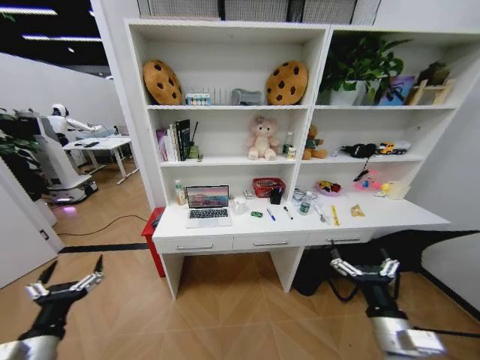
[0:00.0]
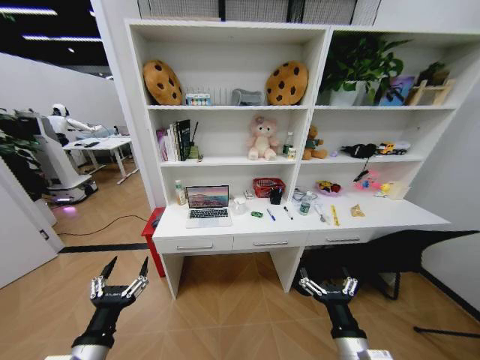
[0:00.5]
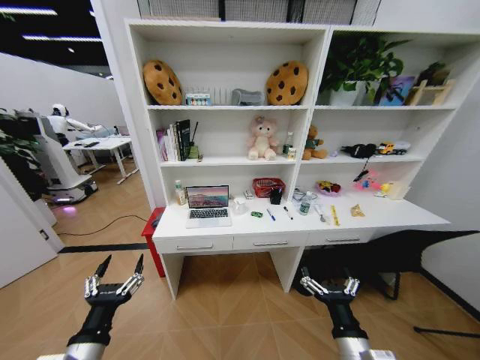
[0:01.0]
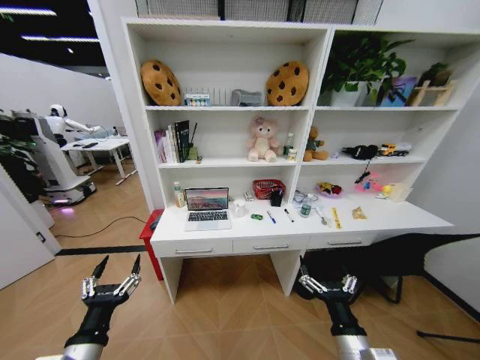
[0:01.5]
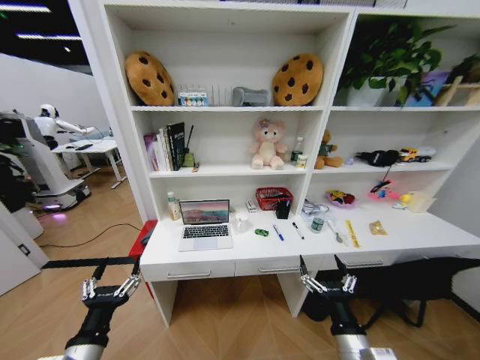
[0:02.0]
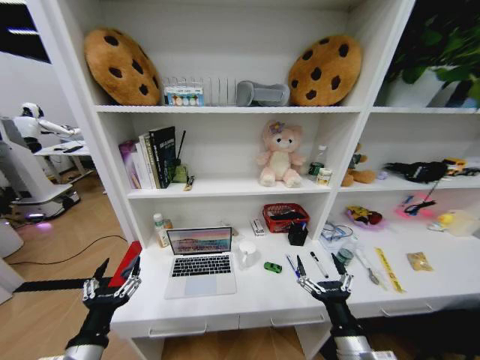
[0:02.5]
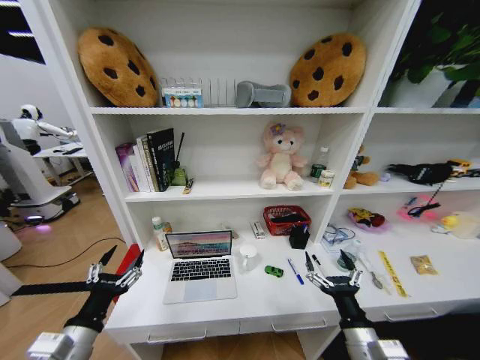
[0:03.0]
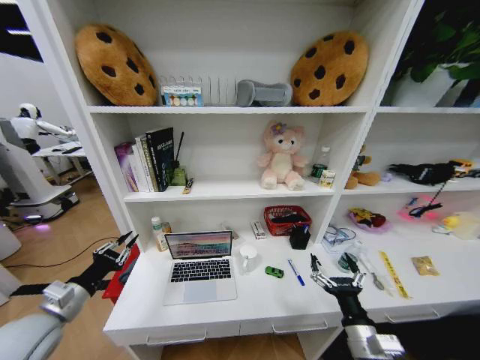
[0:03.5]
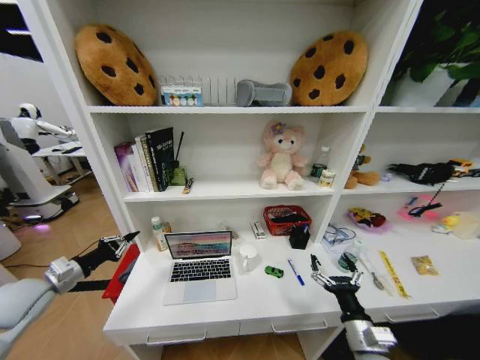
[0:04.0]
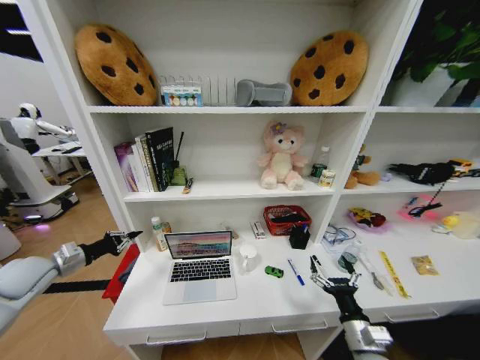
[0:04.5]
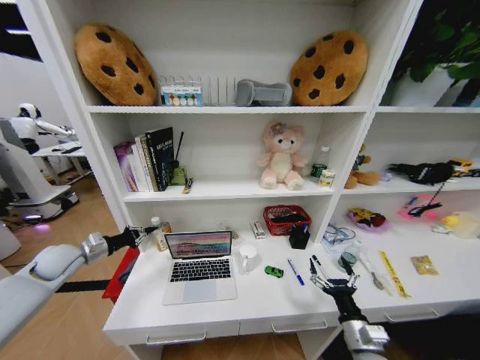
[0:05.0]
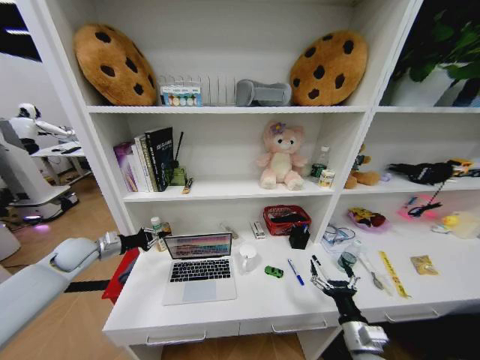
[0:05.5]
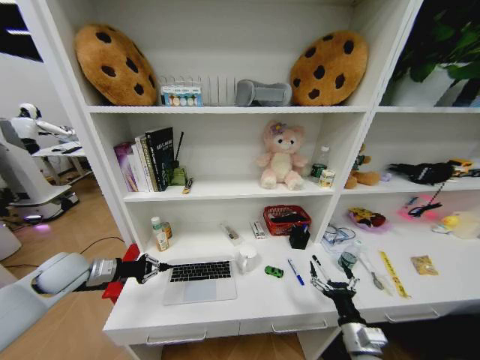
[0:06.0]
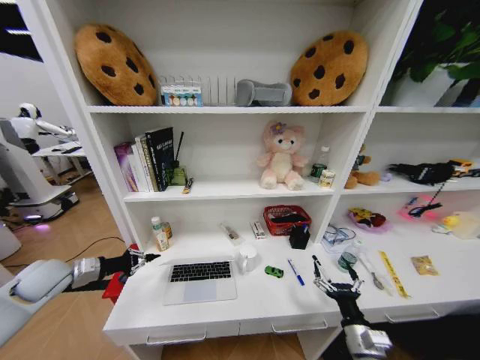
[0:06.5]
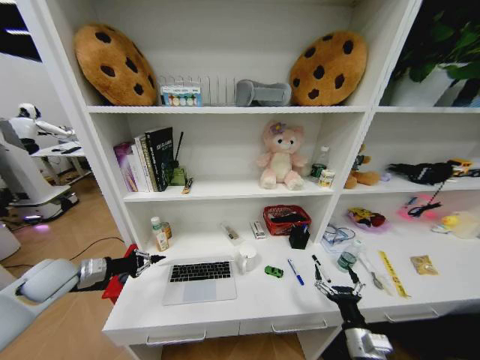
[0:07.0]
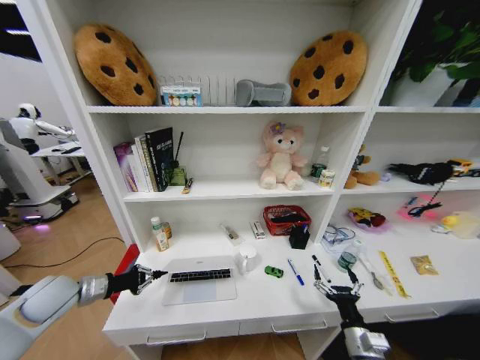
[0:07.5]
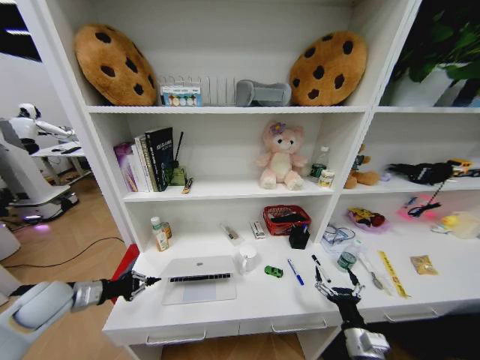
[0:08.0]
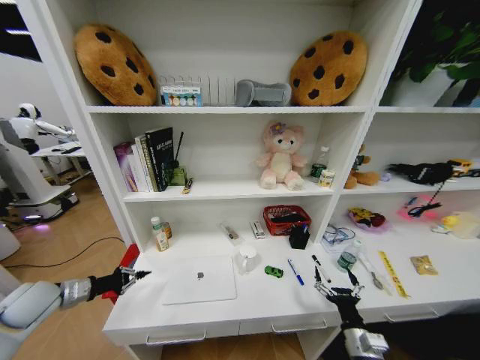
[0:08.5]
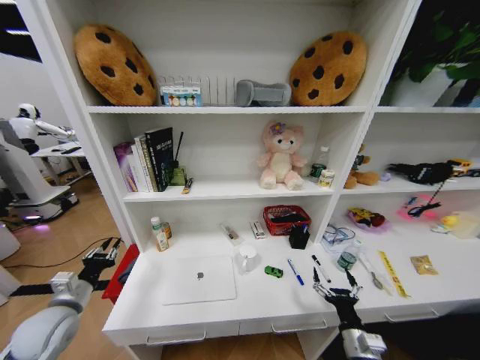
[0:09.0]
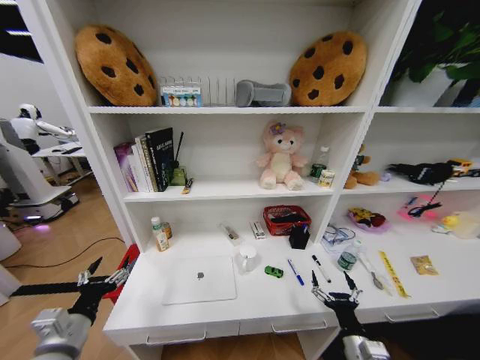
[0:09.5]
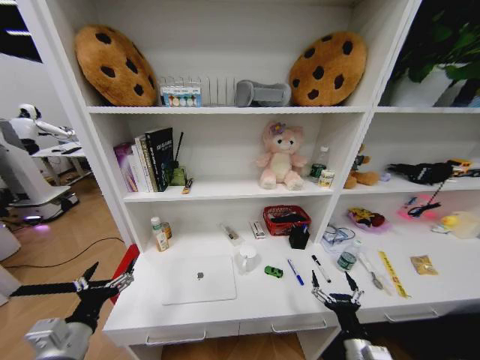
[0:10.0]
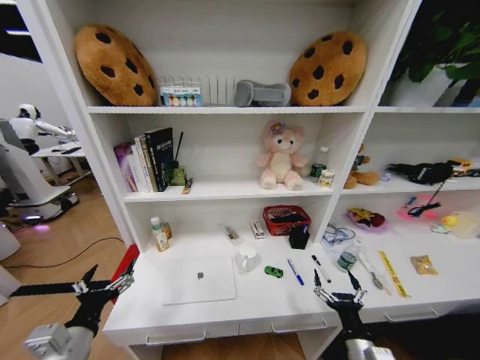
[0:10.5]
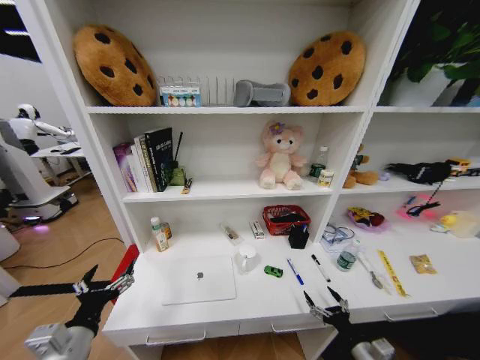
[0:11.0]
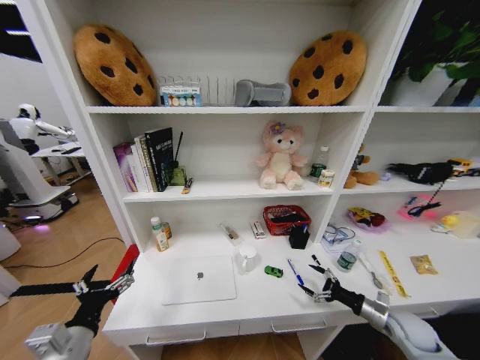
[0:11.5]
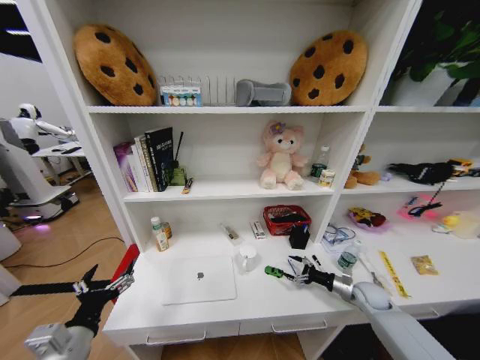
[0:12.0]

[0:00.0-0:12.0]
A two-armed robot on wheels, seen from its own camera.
Task of the whole recording: Organize the objects on the table.
0:02.0 to 0:04.0: The left gripper heads to the left and forward, covering approximately 25 cm, and closes its fingers; the right gripper moves to the right, about 5 cm.
0:04.0 to 0:06.0: The left gripper heads forward, covering about 5 cm.
0:06.0 to 0:08.0: The left gripper heads backward, covering approximately 5 cm.
0:08.0 to 0:10.0: The left gripper heads backward and to the right, covering some 20 cm, and opens up.
0:10.0 to 0:12.0: The right gripper is displaced forward and to the right by approximately 30 cm.

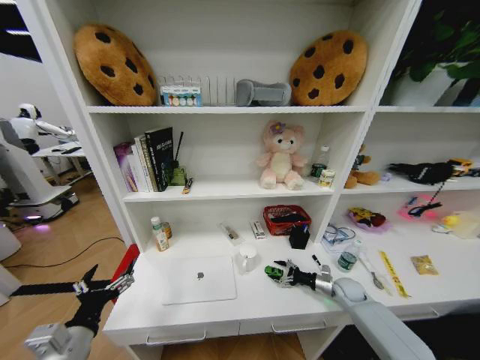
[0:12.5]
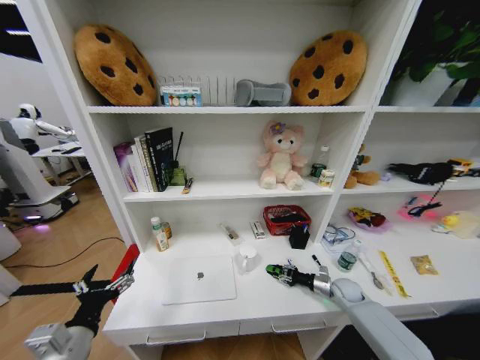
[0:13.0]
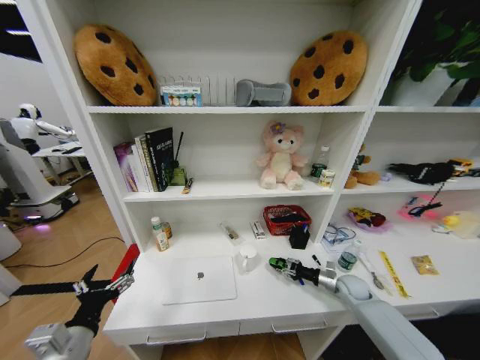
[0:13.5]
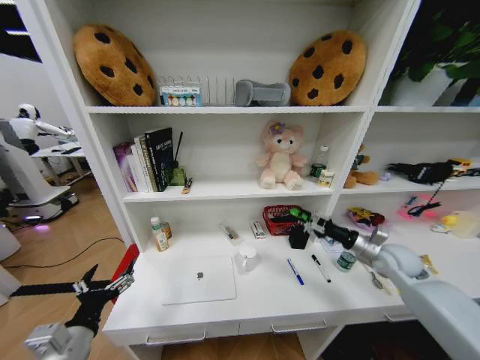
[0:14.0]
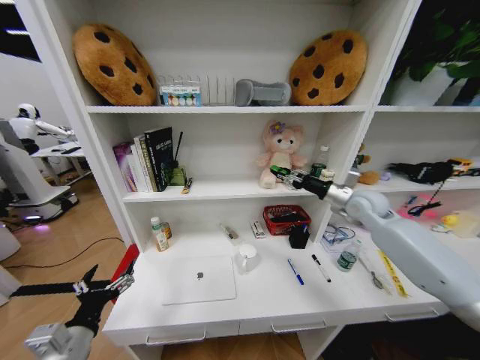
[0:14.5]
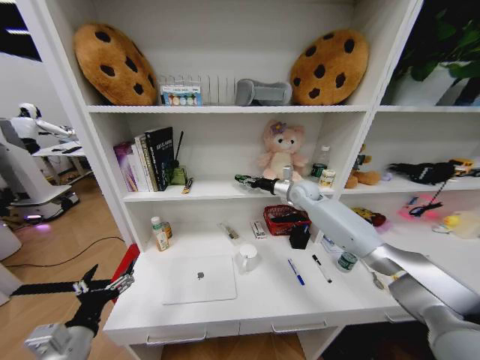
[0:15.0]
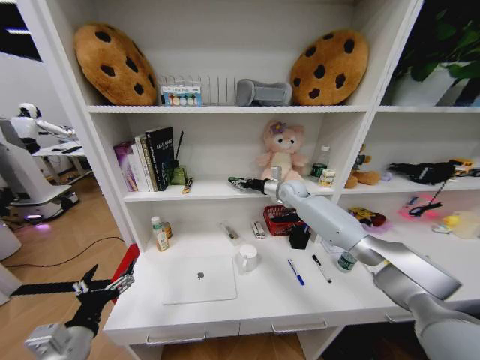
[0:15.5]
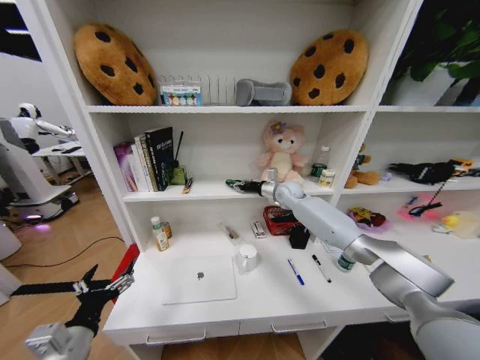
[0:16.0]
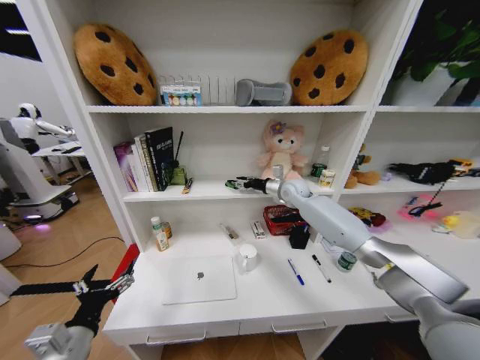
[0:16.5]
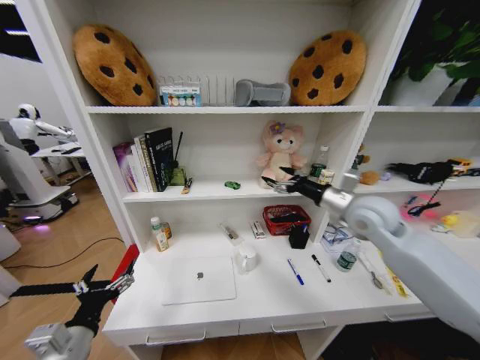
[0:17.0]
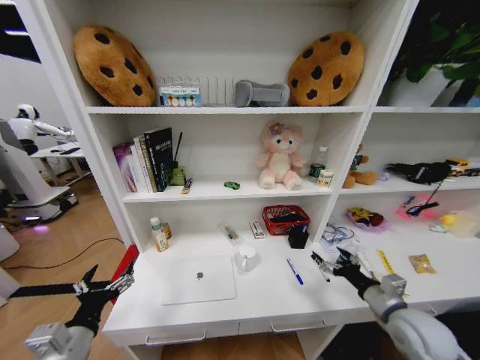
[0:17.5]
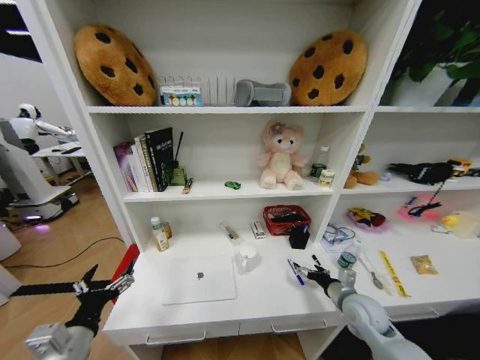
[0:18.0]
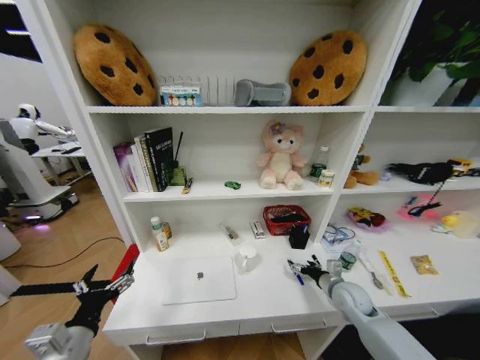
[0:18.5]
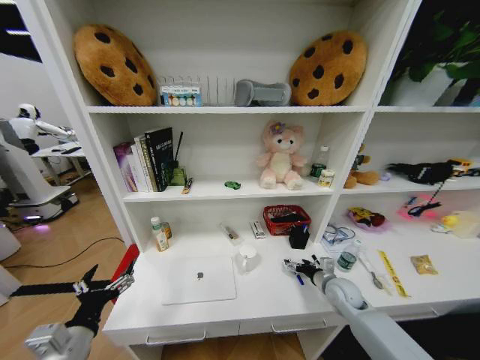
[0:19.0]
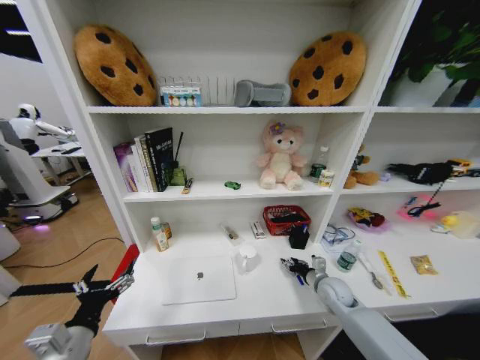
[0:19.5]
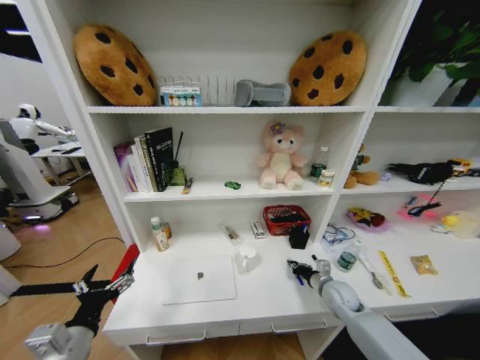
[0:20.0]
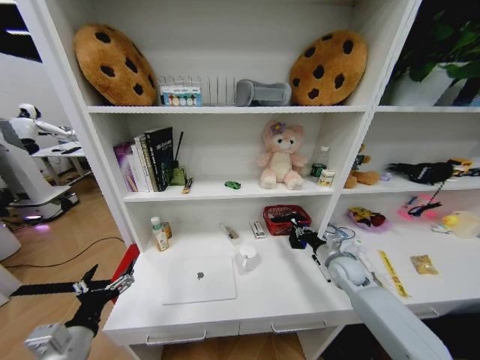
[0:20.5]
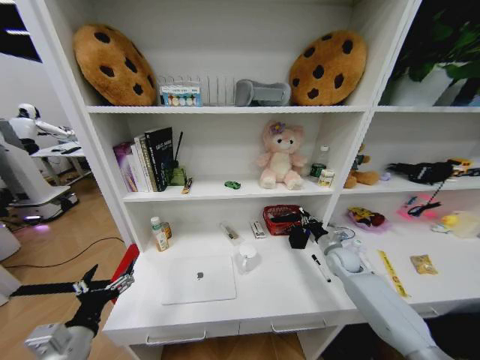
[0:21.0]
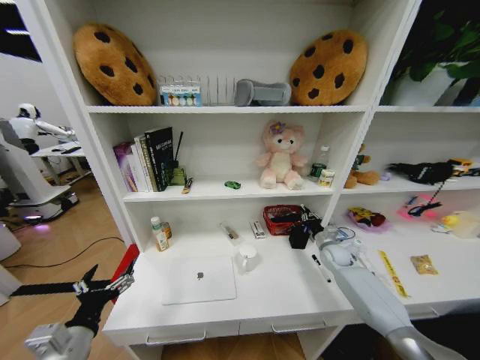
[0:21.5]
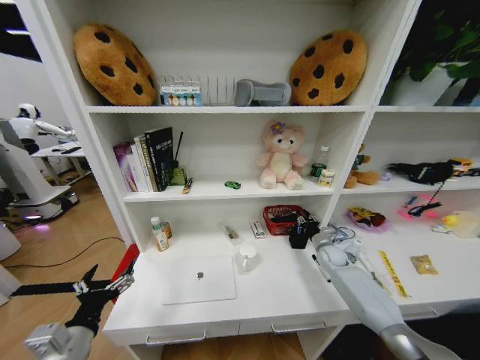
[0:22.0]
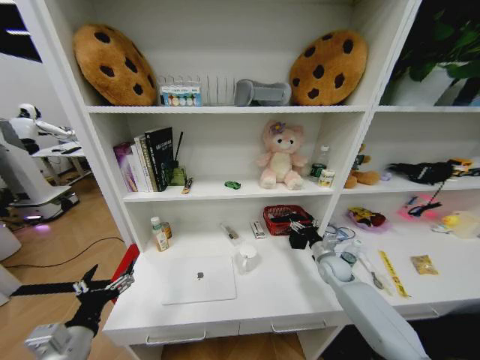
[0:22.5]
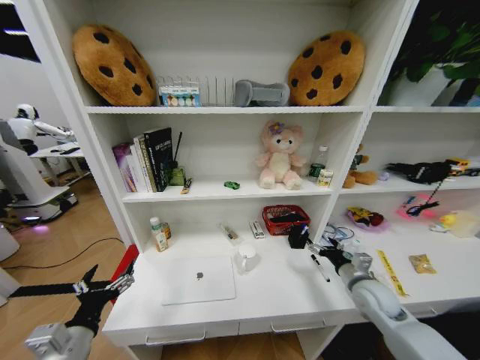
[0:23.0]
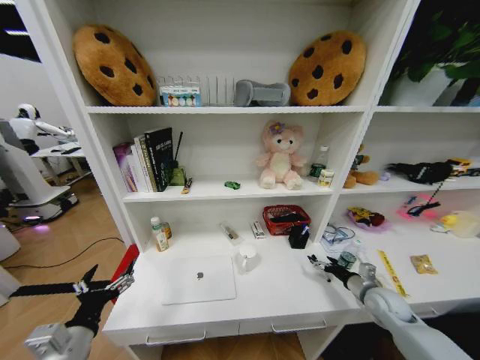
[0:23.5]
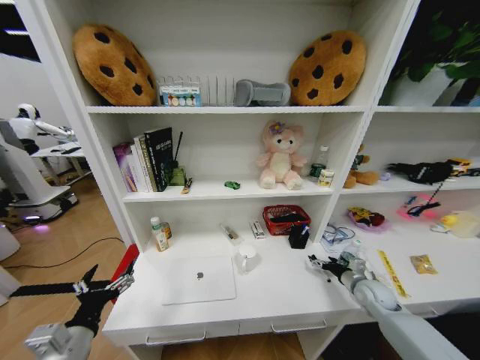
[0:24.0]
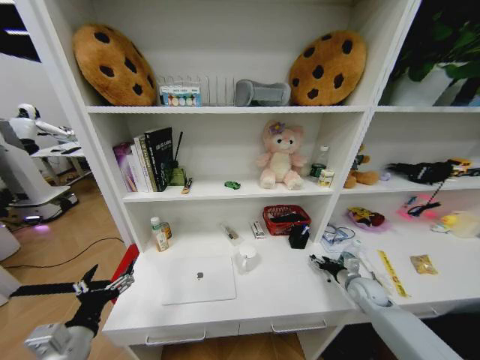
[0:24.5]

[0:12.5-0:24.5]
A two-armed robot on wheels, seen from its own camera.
Task of the whole recording: Organize the objects on the table.
0:12.5 to 0:14.5: The right gripper travels upward by some 35 cm, and closes.
0:14.5 to 0:16.5: The right gripper moves to the left and forward, about 20 cm.
0:16.5 to 0:18.5: The right gripper shifts approximately 35 cm backward, downward and to the right.
0:18.5 to 0:20.5: The right gripper travels forward by about 5 cm, and closes its fingers.
0:20.5 to 0:22.5: The right gripper reaches about 10 cm forward, then returns, and opens its fingers.
0:22.5 to 0:24.5: The right gripper is displaced to the right and backward by about 10 cm.

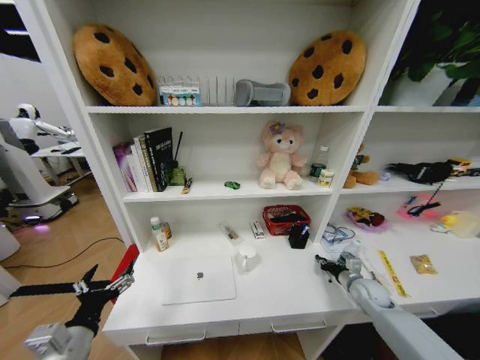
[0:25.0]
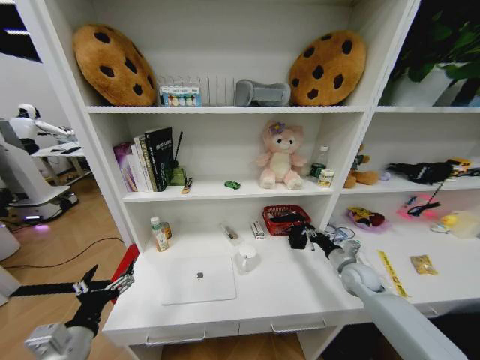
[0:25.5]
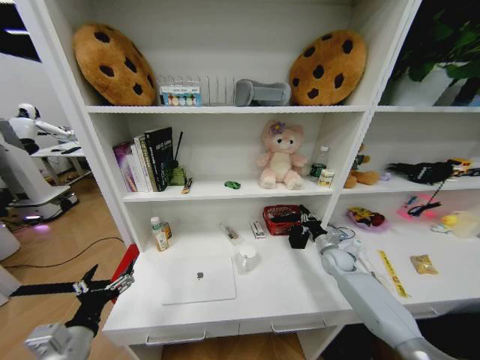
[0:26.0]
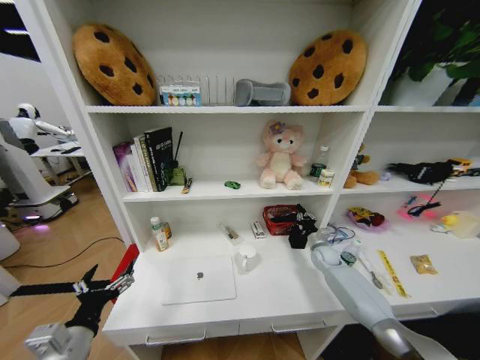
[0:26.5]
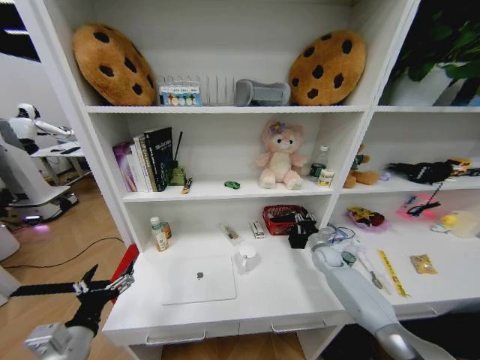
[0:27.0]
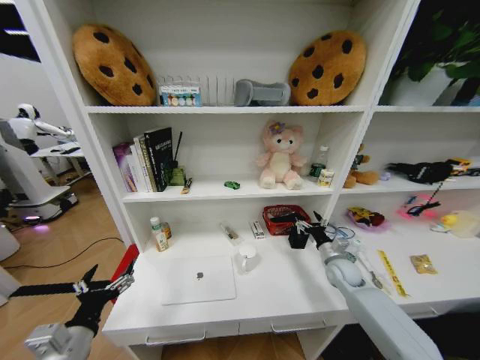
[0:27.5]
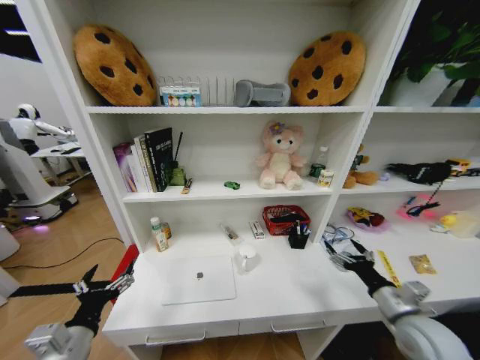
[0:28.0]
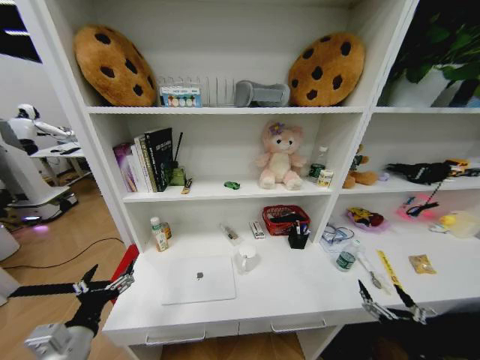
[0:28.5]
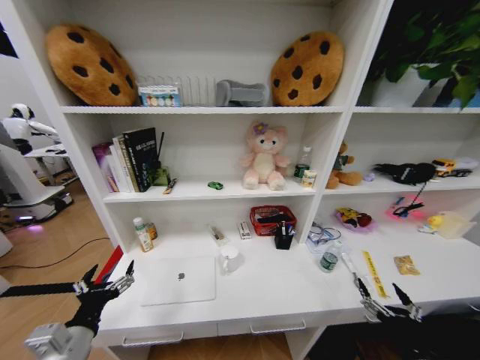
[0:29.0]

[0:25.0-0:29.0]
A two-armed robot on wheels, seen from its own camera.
Task of the whole recording: Organize the objects on the table.
0:25.0 to 0:27.0: The right gripper travels forward and to the left by about 15 cm.
0:27.0 to 0:29.0: The right gripper travels backward by approximately 40 cm, and opens.
